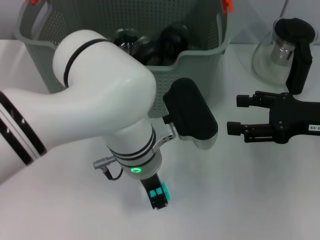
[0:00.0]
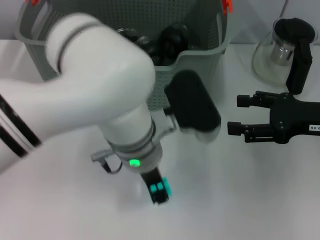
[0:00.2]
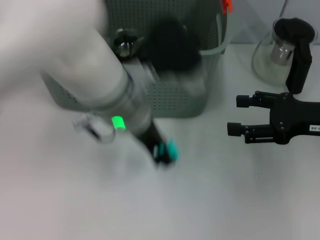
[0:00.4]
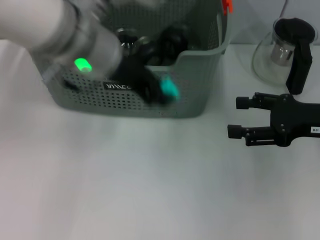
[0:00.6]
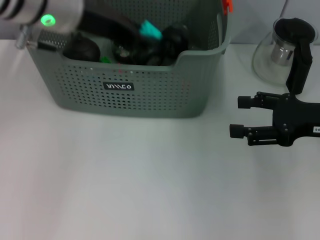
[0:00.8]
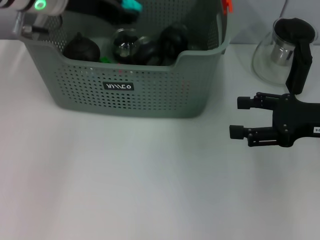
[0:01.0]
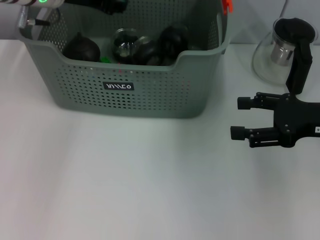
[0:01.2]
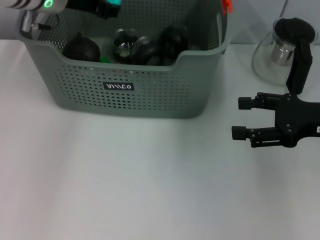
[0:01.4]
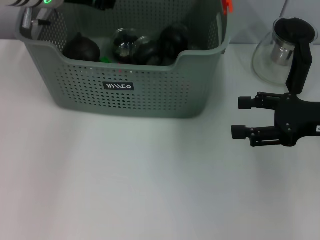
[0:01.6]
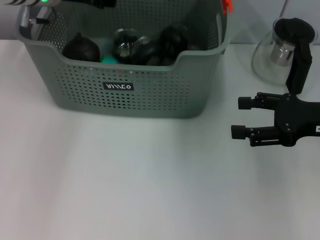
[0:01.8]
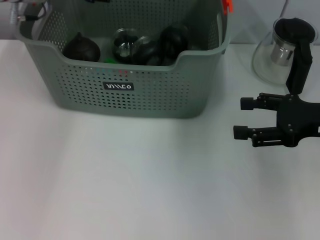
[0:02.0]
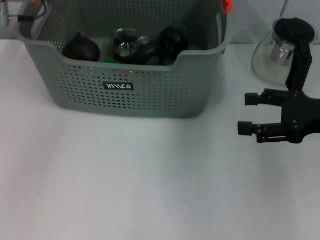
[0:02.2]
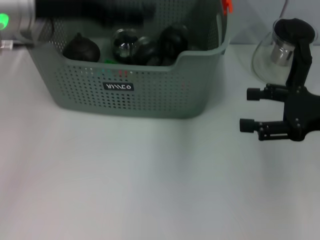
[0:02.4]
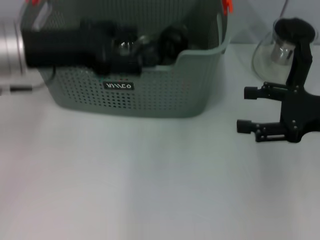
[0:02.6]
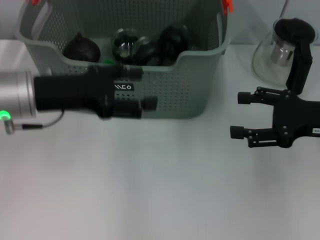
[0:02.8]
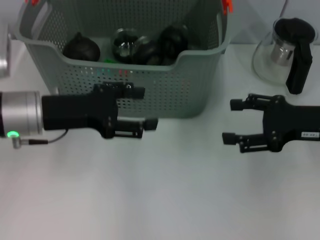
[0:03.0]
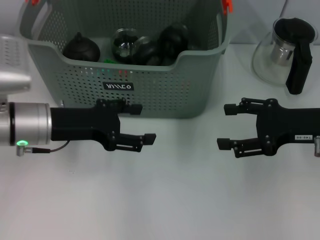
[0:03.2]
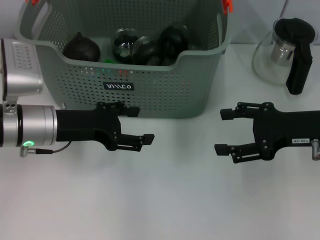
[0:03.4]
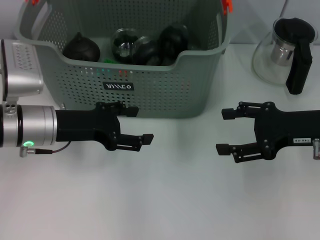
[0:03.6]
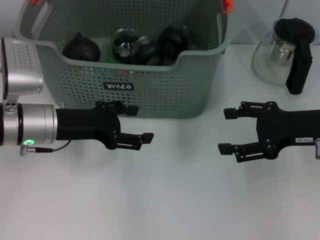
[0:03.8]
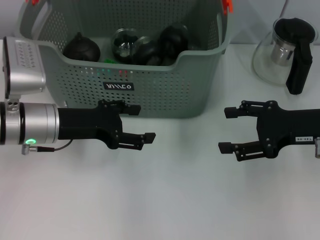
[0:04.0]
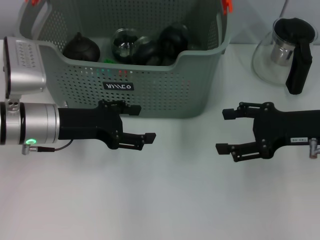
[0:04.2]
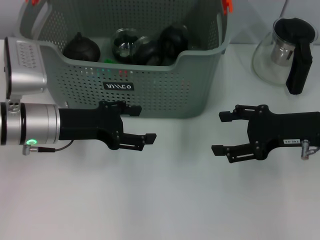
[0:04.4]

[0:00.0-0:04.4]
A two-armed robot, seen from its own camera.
Task of the whole recording: pick up the teacup on the table and place it into the storage bin, pick up the block on the table and place it into the storage bin.
Step, 0:00.0 to 0:02.0: Place the light blue block in the storage box with left gripper.
0:00.0 to 0:01.4: The left gripper goes approximately 25 cm forward, to the left and upward.
0:01.4 to 0:03.0: The left gripper moves backward and downward, approximately 15 cm, and opens.
0:03.0 to 0:04.4: The grippers move only a little.
